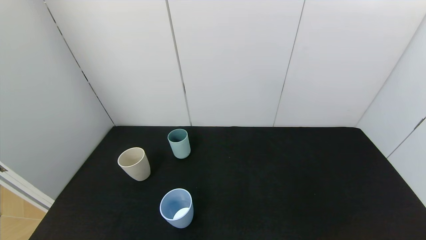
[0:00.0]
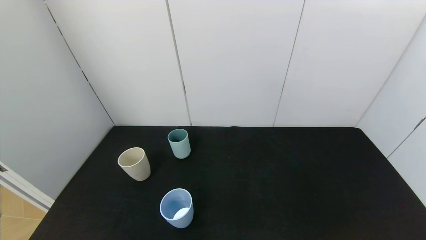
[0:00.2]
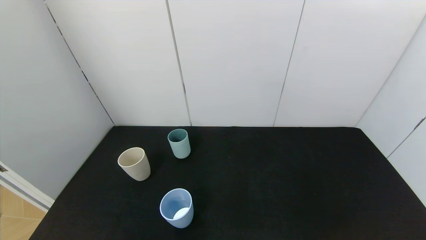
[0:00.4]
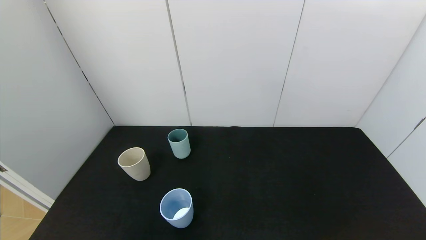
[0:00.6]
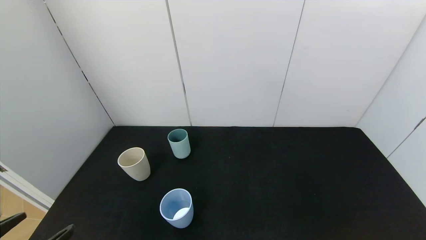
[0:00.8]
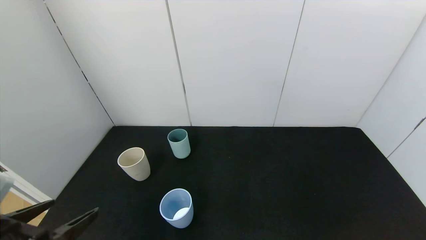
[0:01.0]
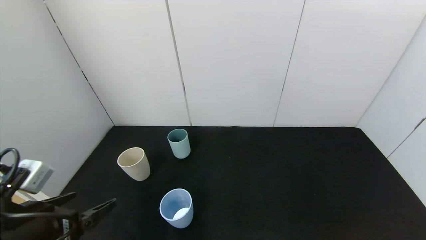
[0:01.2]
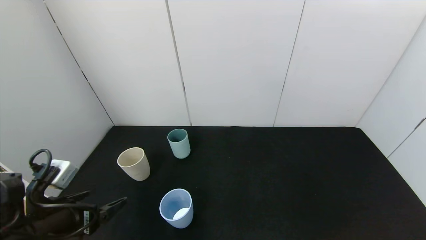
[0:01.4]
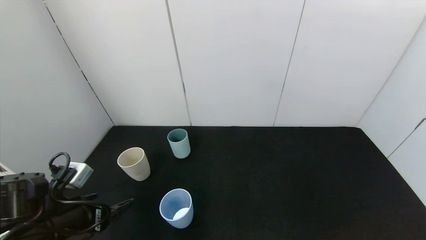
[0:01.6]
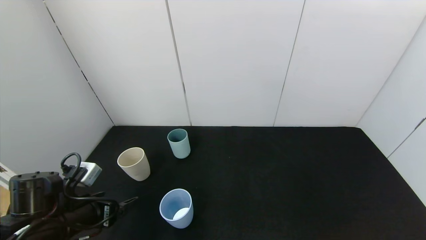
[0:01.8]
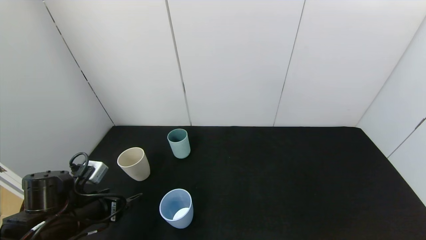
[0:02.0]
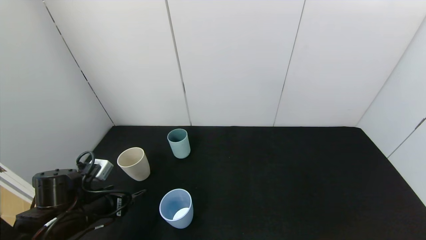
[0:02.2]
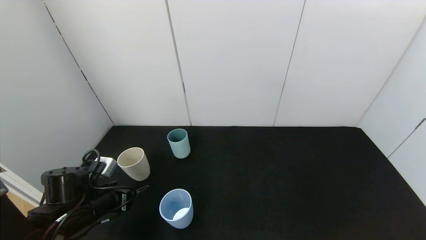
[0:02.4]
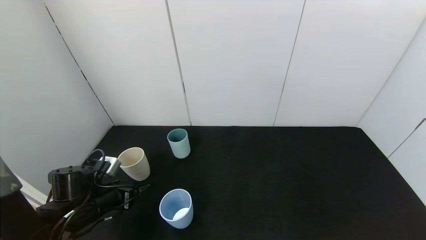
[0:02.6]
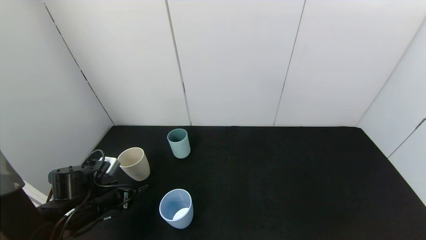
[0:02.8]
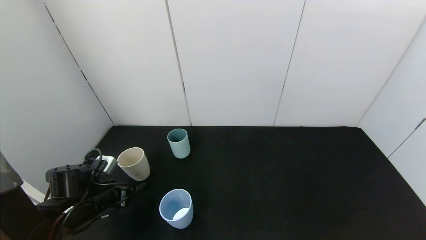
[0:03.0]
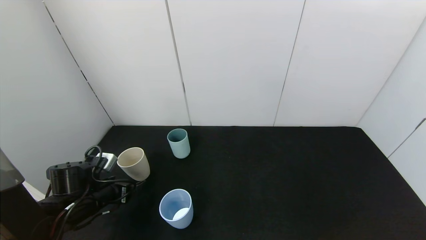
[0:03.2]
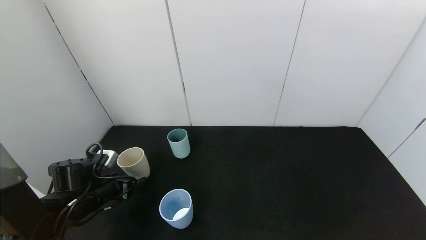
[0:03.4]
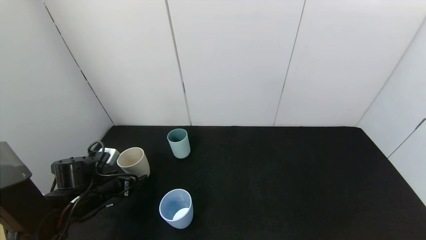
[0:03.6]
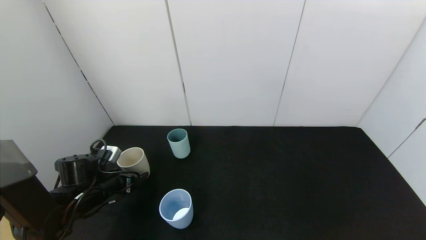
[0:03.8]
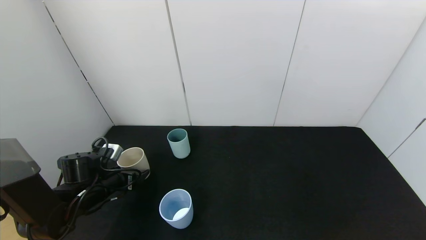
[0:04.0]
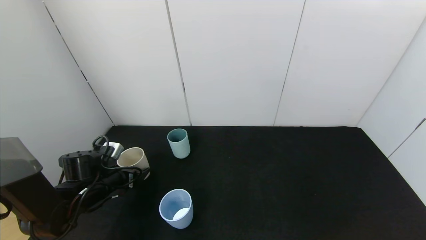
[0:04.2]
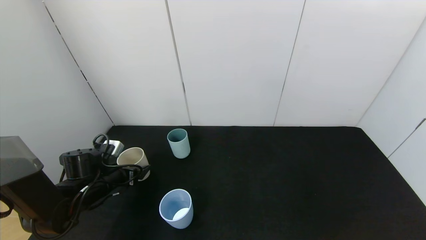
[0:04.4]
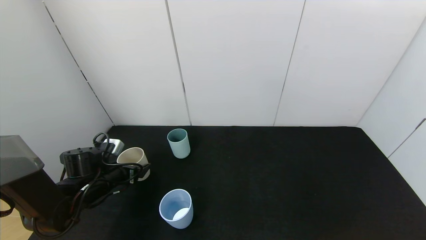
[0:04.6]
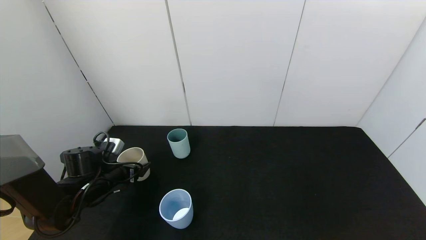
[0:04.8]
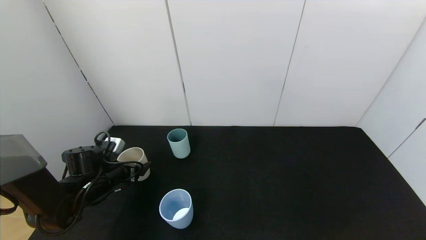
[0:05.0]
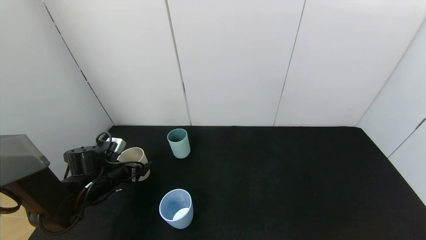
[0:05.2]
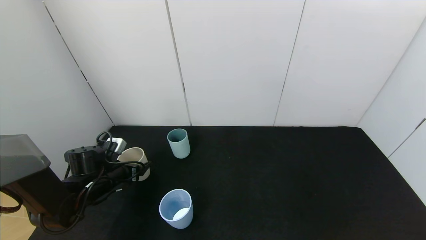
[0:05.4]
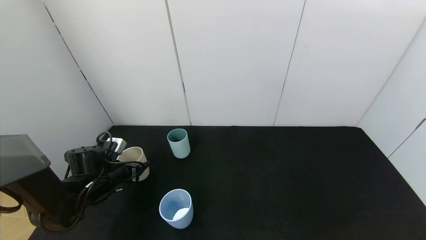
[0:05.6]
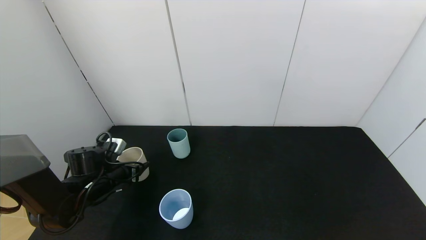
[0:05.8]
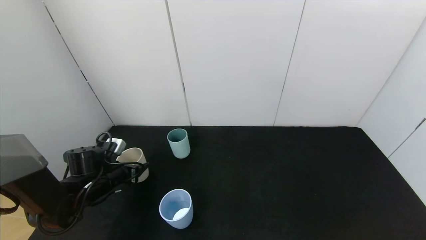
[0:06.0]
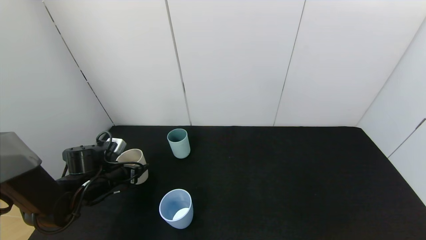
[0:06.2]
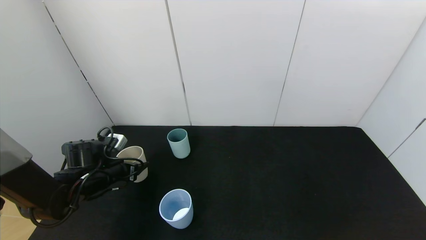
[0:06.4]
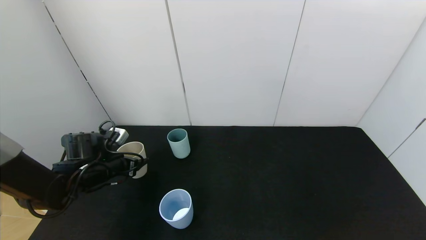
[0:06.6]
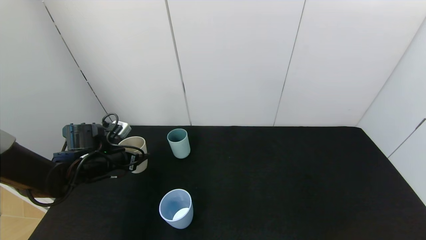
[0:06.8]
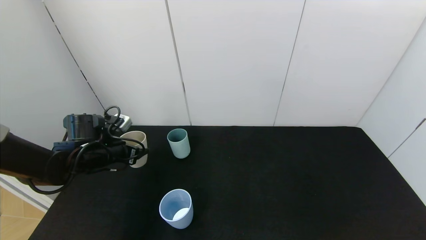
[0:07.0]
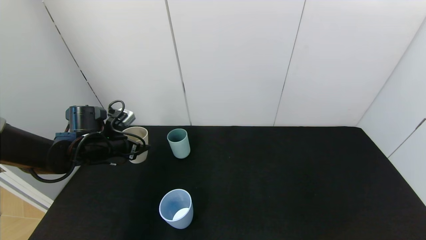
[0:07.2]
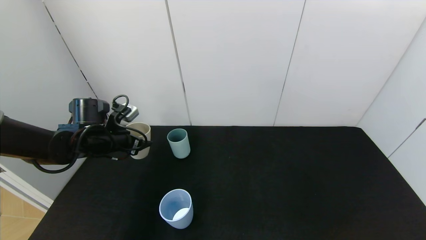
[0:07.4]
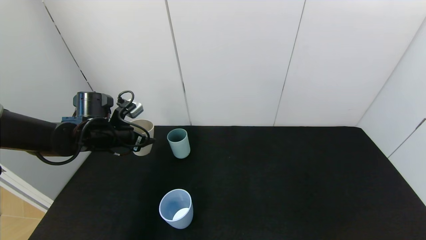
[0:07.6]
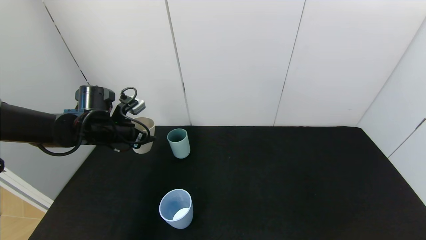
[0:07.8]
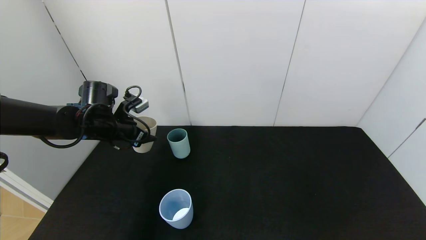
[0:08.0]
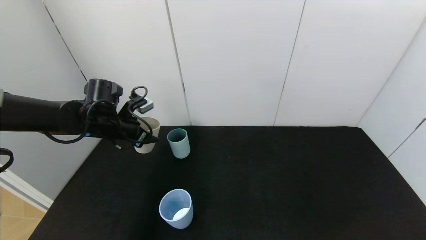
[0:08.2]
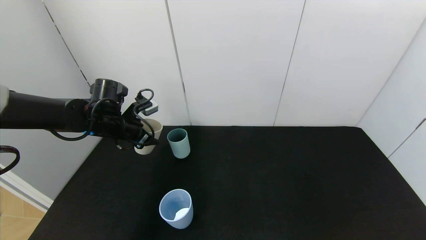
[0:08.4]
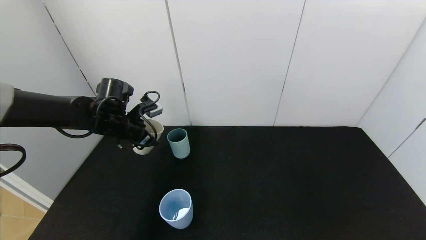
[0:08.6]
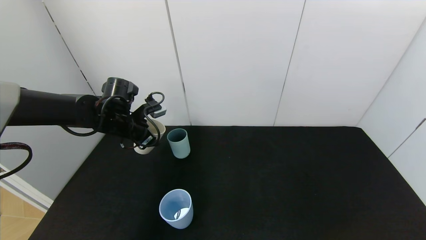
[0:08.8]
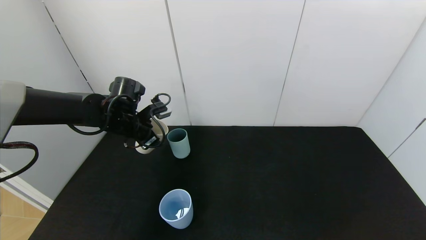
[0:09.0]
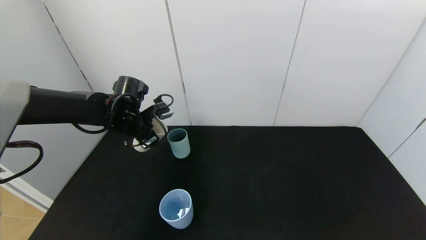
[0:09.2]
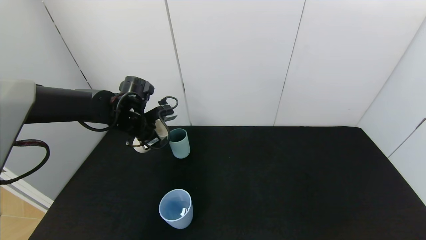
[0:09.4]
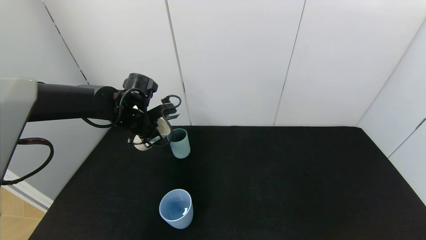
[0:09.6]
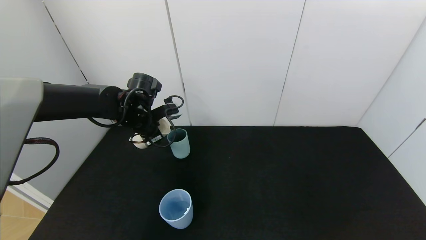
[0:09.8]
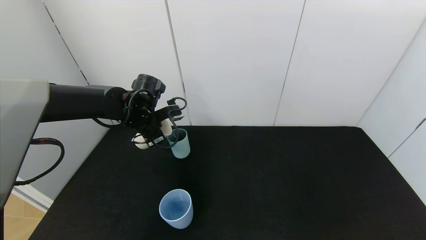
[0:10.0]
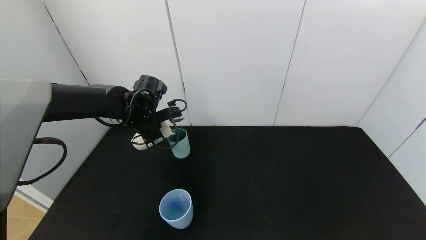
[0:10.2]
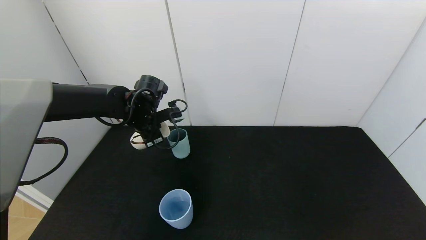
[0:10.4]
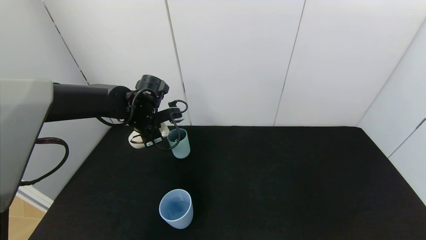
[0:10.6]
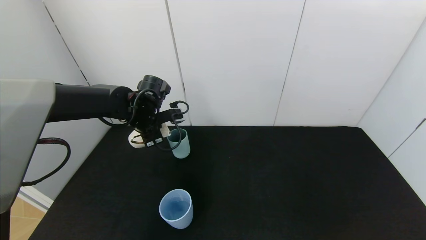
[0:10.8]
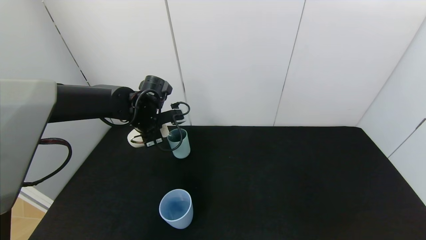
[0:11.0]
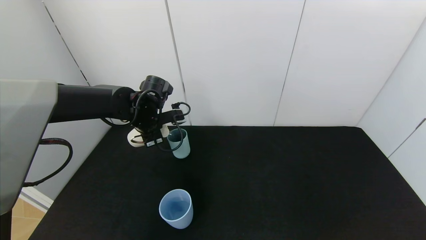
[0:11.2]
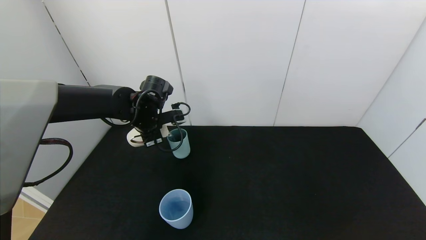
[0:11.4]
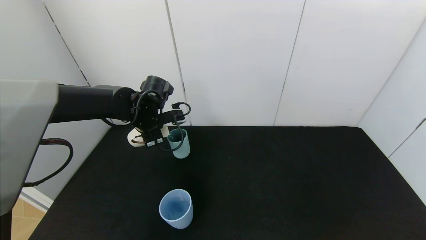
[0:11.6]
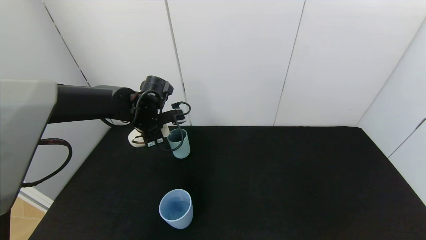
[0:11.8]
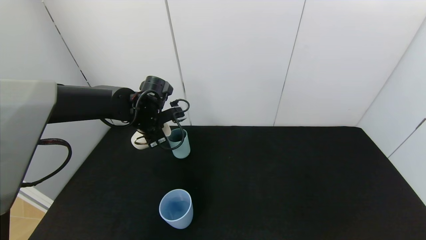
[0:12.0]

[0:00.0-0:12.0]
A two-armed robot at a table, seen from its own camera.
Task of the whole recording: use the gripper to pour the water into the other two cups on black table.
Step, 0:00.0 to 0:06.0: Grasp the white cup with the left gripper.
0:00.0 to 0:01.6: The left gripper heads forward, covering approximately 20 cm.
0:01.6 to 0:03.0: The left gripper travels forward and downward by about 10 cm.
0:03.0 to 0:04.4: The left gripper goes roughly 5 cm forward.
0:04.4 to 0:06.0: The left gripper closes up.
0:06.0 to 0:07.6: The left gripper moves upward and forward, about 10 cm.
0:07.6 to 0:09.0: The left gripper goes about 5 cm to the right.
0:09.0 to 0:10.4: The grippers move only a little.
0:10.4 to 0:12.0: The grippers stay close to where they were, moving slightly.

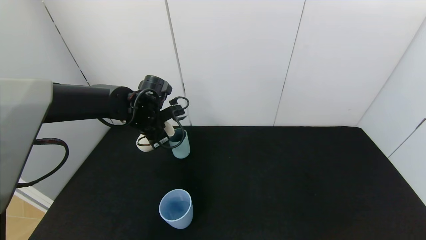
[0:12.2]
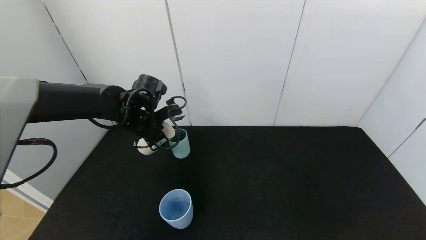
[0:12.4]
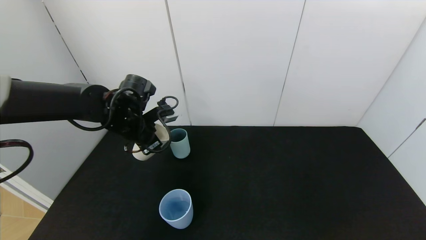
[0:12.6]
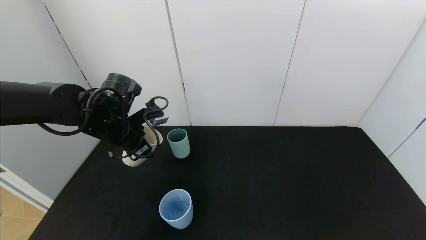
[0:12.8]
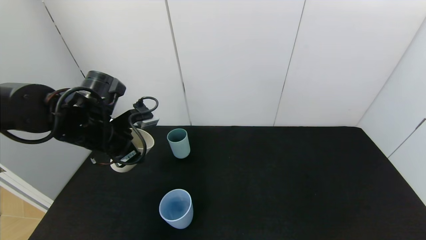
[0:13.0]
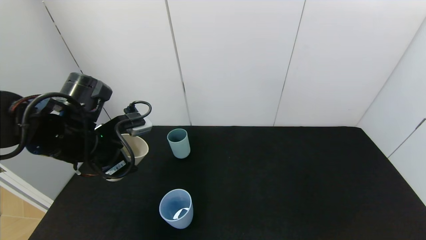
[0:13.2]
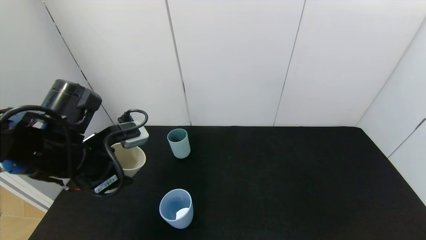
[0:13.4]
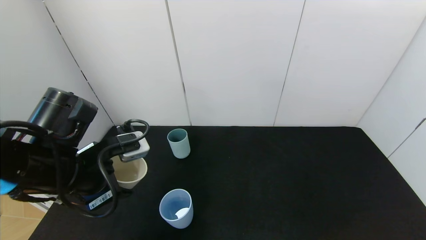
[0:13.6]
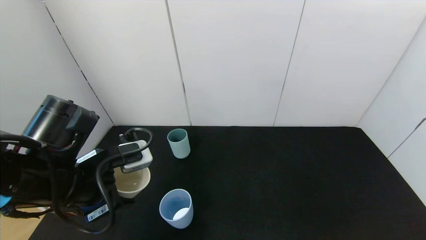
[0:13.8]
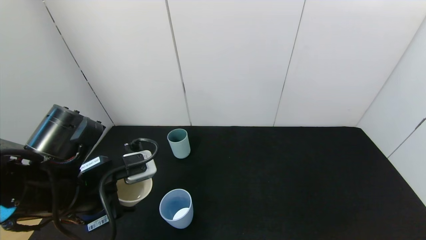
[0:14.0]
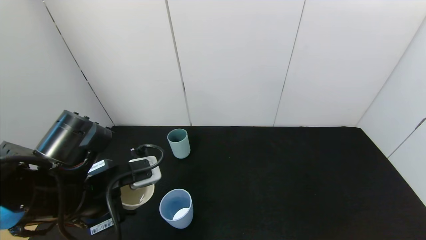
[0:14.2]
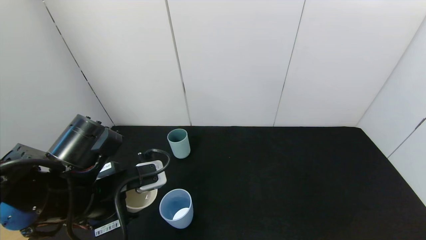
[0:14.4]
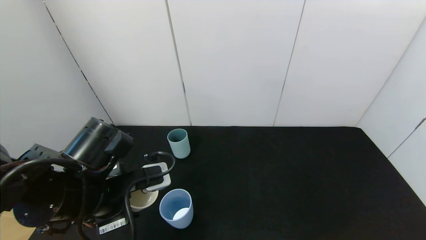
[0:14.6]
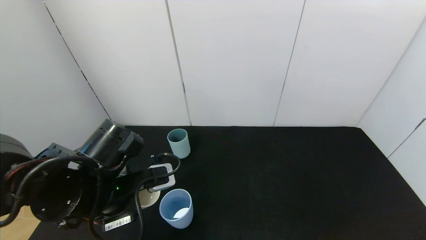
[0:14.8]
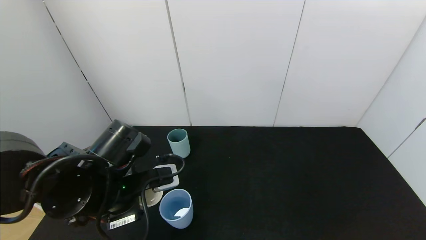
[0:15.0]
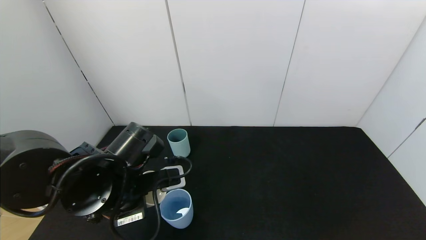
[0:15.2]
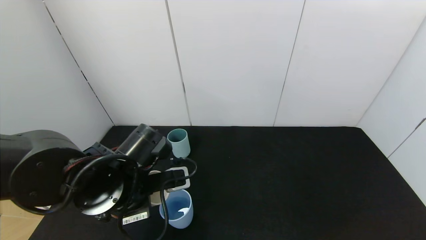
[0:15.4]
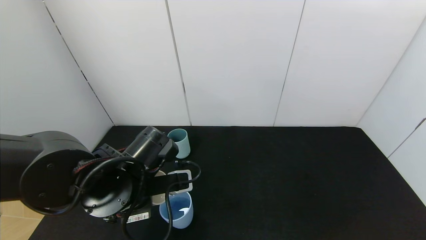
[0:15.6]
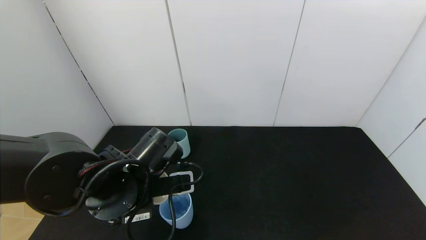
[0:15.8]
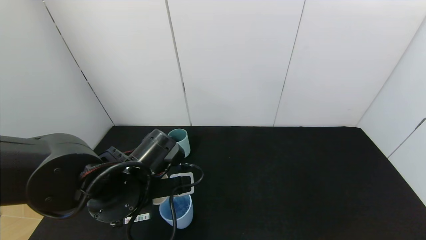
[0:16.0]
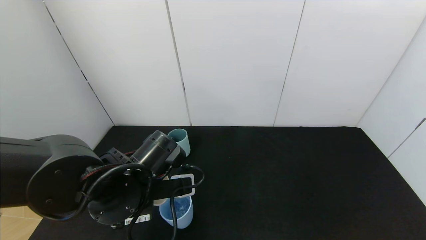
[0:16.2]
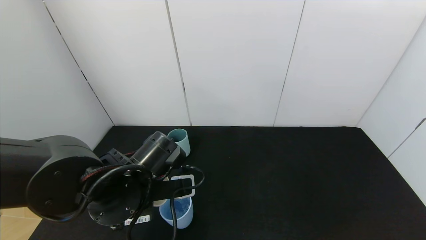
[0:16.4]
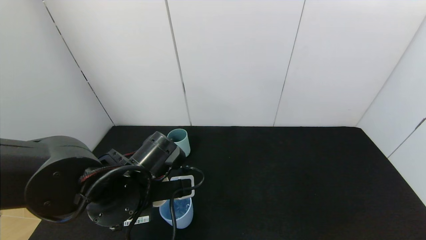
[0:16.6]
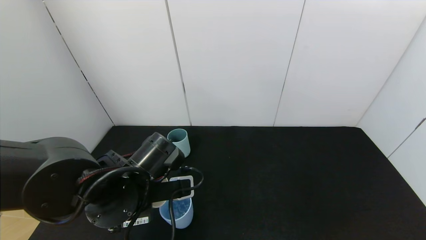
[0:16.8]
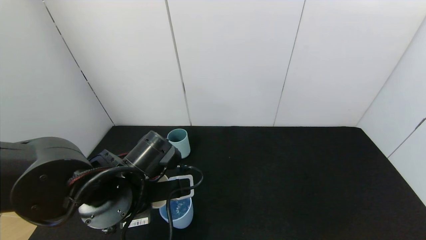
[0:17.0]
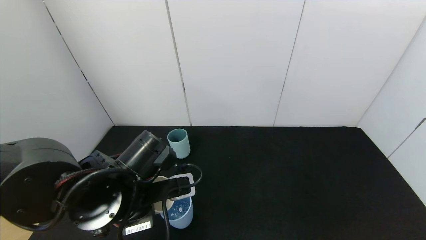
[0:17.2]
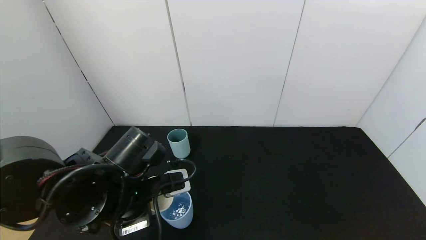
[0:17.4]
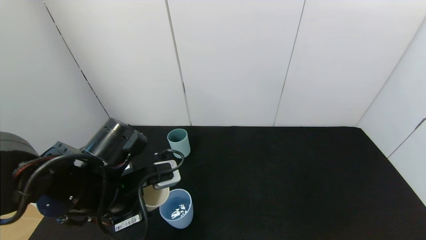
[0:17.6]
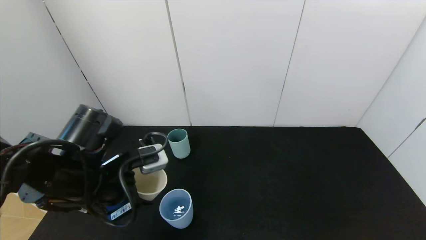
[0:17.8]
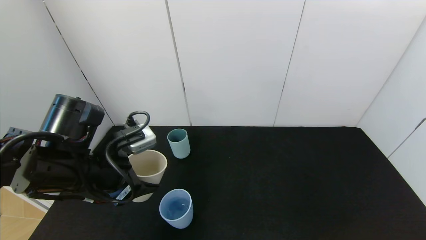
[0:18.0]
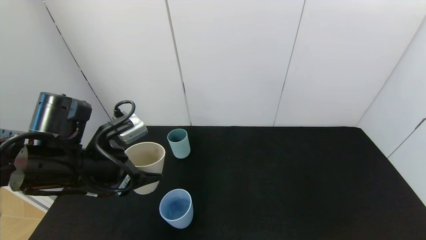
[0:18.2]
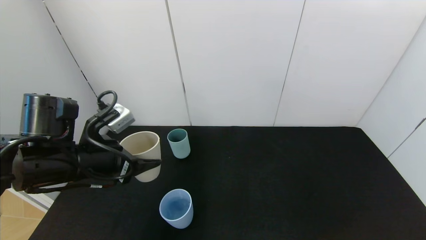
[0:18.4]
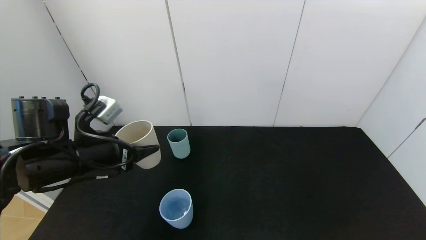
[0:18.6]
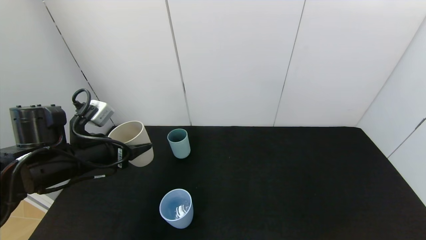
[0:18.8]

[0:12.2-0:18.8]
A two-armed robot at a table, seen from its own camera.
Task of the whole recording: use the gripper to pour the water into the other two cups on black table.
Step, 0:12.8 to 0:18.0: Pour water from white cup to blue cup with the left gripper.
0:12.2 to 0:13.8: The left gripper shifts roughly 20 cm backward.
0:13.8 to 0:15.4: The left gripper moves to the right, about 5 cm.
0:15.4 to 0:17.2: There are only small adjustments of the grippers.
0:17.2 to 0:18.8: The left gripper heads to the left and forward, covering approximately 15 cm.
